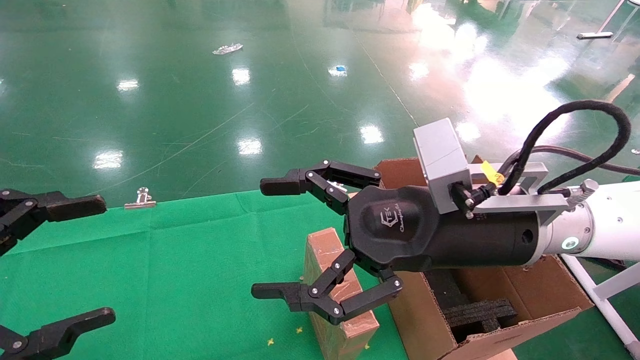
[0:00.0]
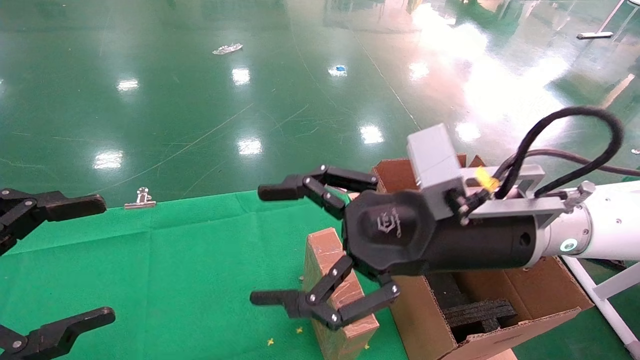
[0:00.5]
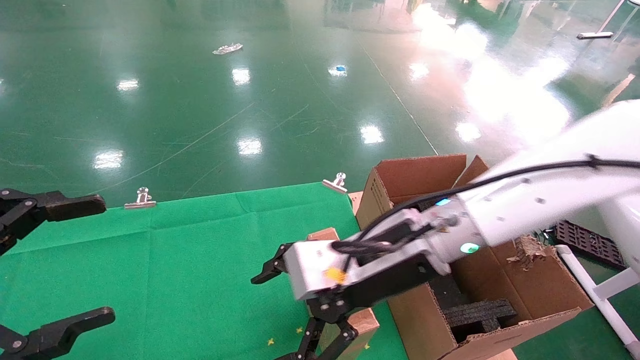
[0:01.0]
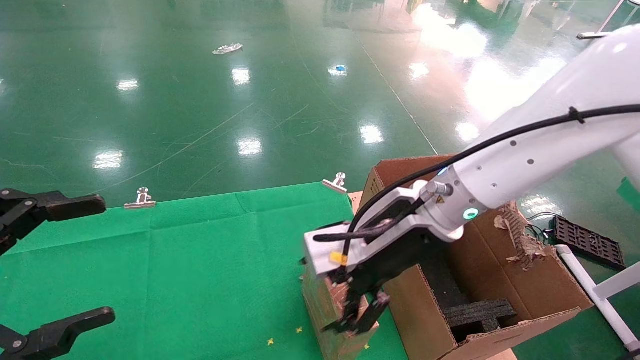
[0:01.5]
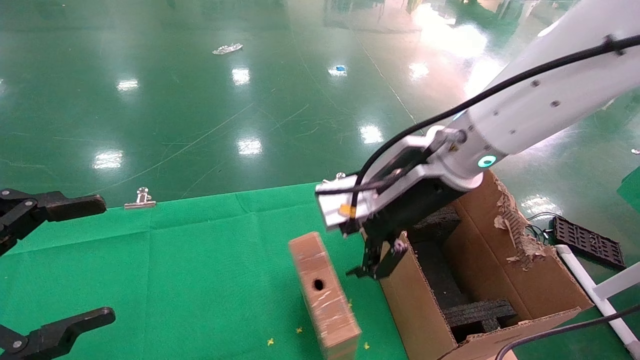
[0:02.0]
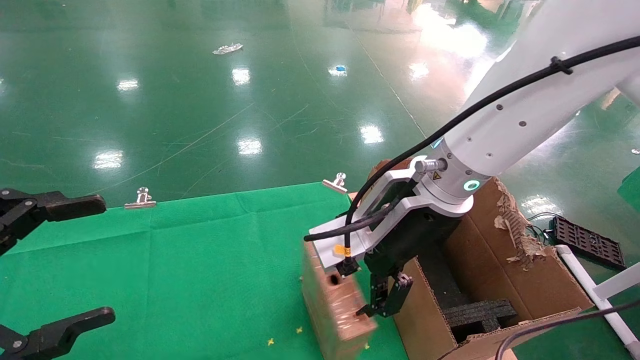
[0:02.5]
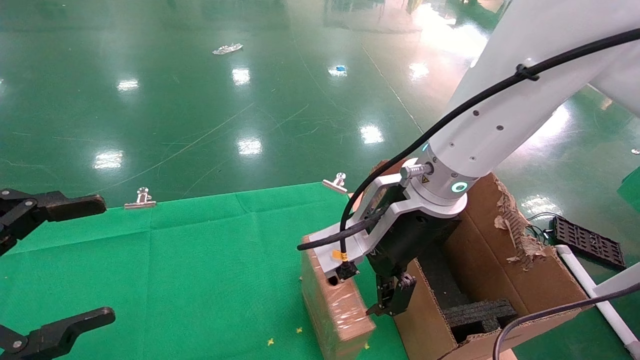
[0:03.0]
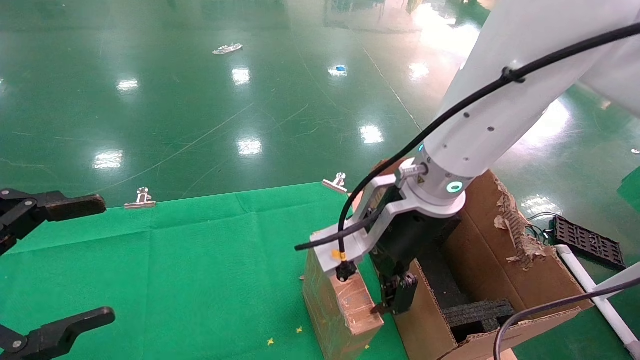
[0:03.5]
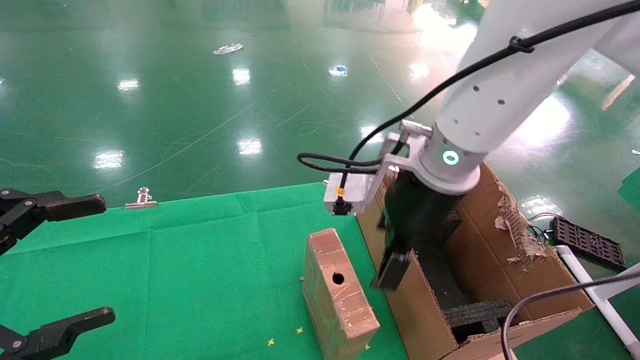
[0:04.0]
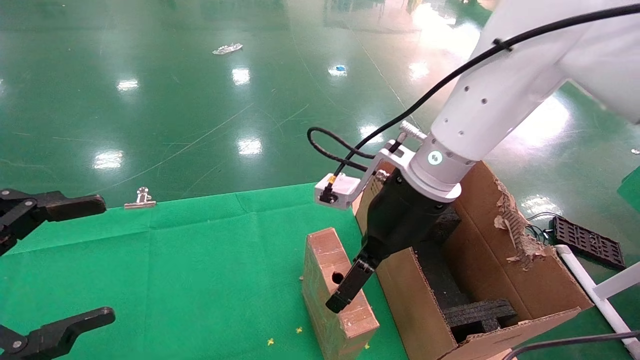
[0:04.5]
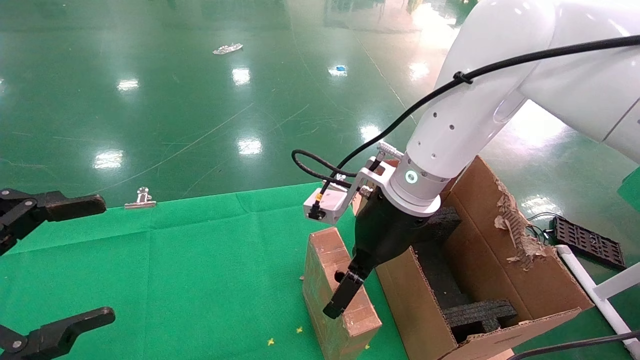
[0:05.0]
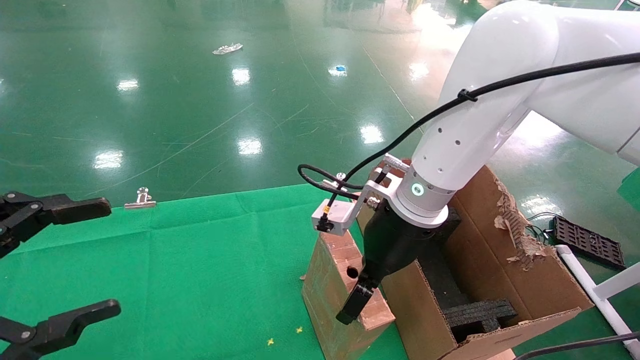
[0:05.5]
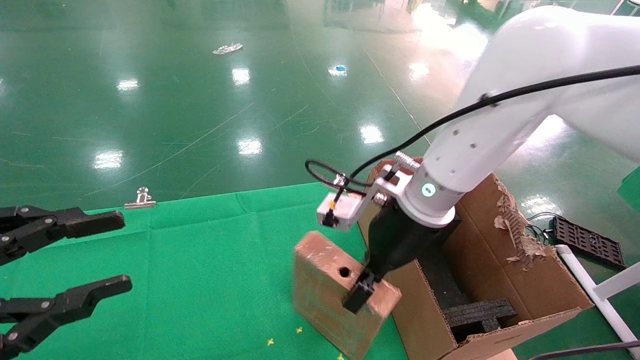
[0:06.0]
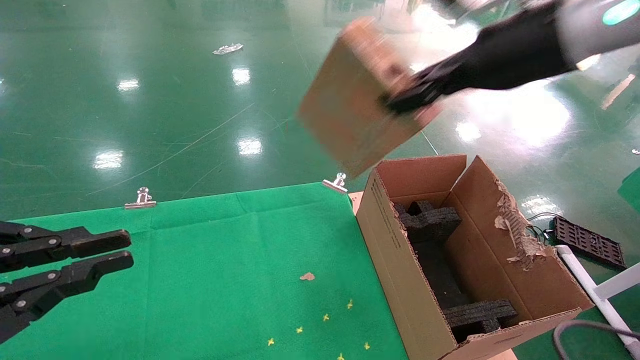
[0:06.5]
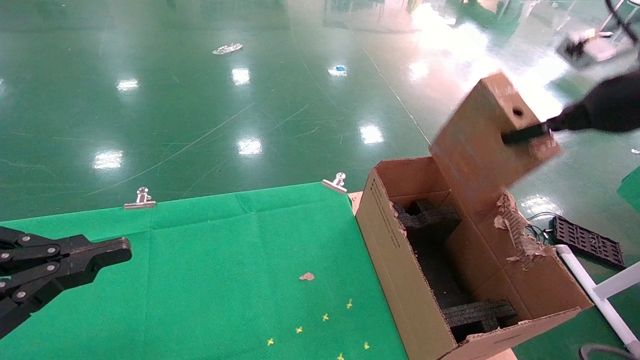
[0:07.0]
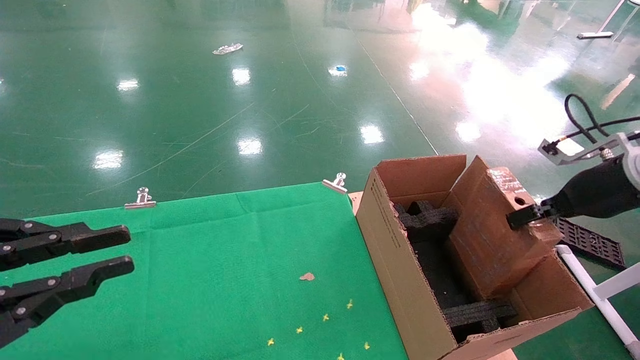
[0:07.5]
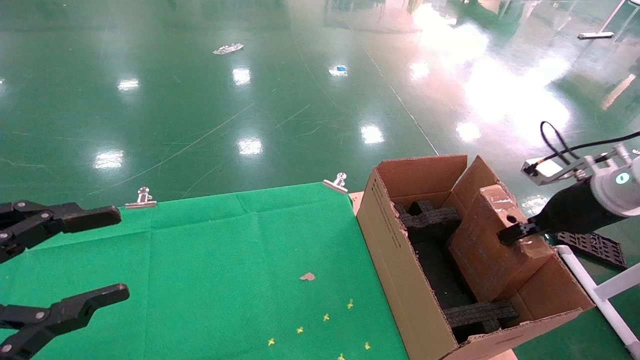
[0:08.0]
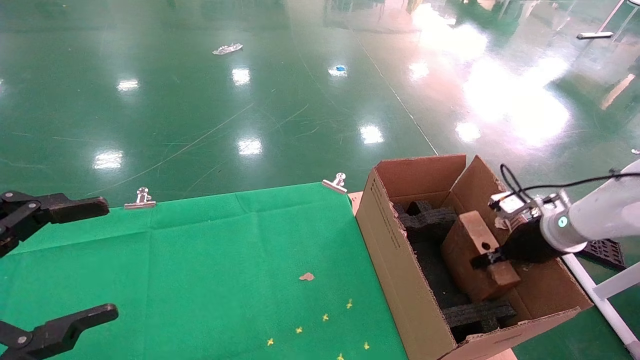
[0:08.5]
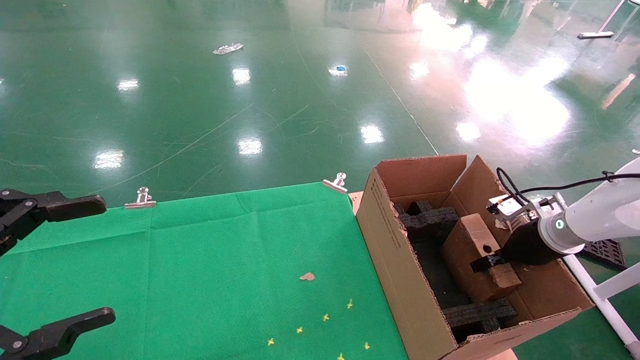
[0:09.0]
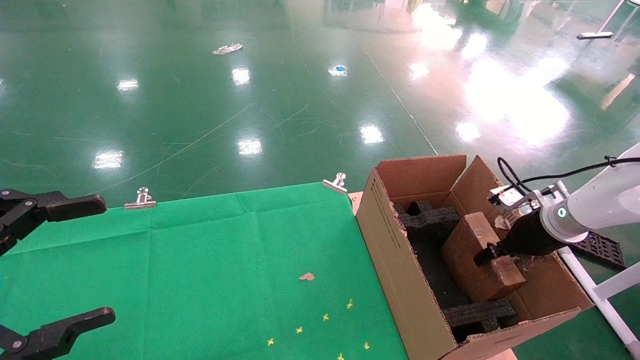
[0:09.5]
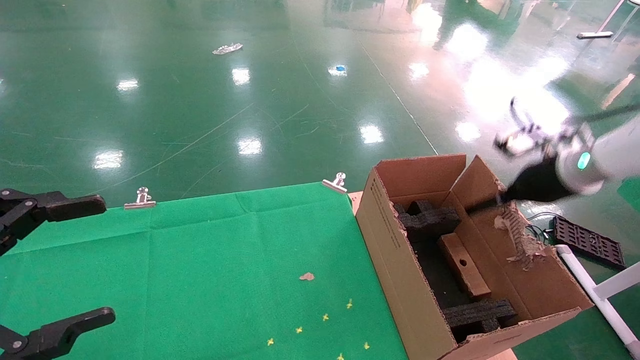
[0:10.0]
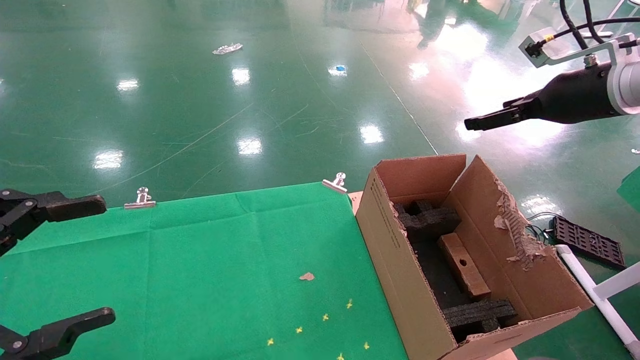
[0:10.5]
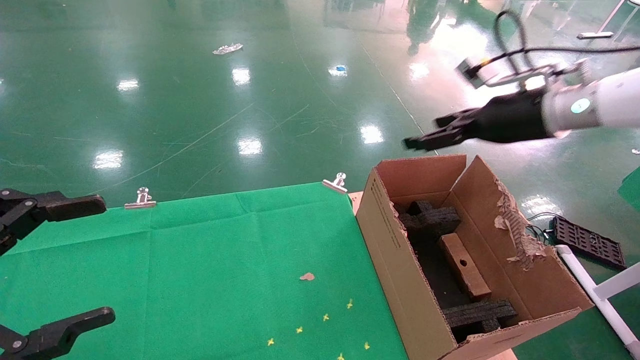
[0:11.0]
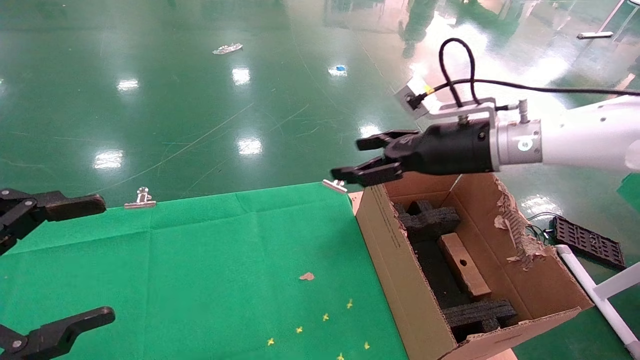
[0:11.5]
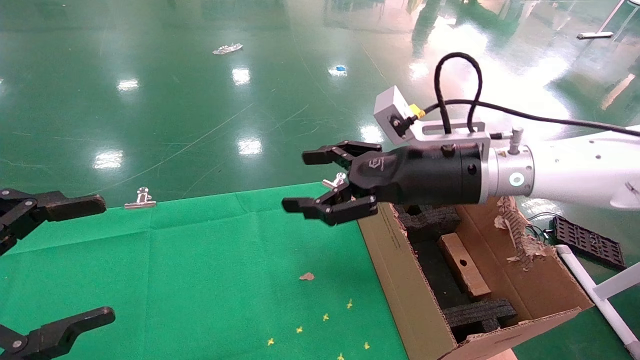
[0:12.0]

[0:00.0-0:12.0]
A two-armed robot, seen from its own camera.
Task of the whole recording: using a robotic arm to pick up a cardboard box and palace it the carton.
Step, 0:01.0 to 0:05.5: Pick up the mouse and the power cord paper box.
Step, 0:06.0 to 0:10.0: Place the mouse and the power cord paper box into the container.
0:00.0 to 0:02.0: The right gripper travels forward by some 5 cm.
0:04.0 to 0:06.0: The left gripper closes up, while the right gripper closes.
0:06.0 to 0:08.0: The right gripper heads to the right, covering about 30 cm. Meanwhile the left gripper closes and opens again.
0:08.0 to 0:10.0: The right gripper moves about 10 cm downward and comes back, and opens. Meanwhile the left gripper opens up.
0:10.0 to 0:12.0: The right gripper moves to the left, about 25 cm.

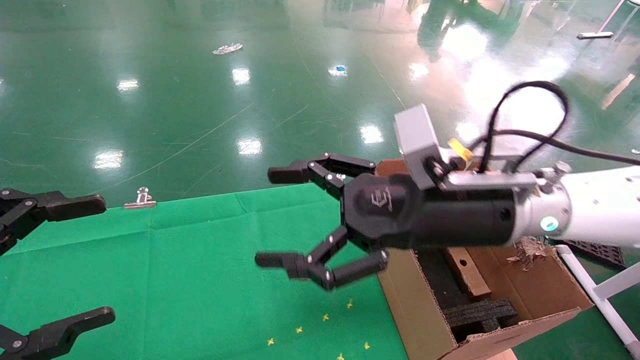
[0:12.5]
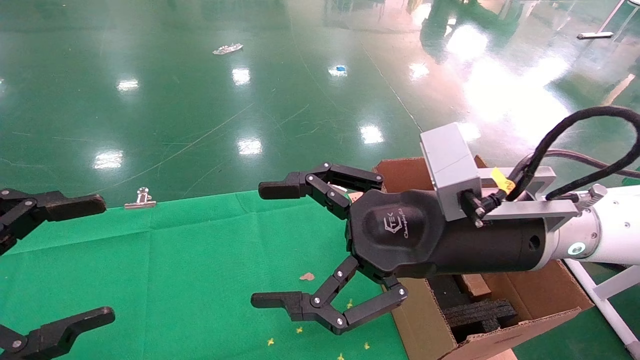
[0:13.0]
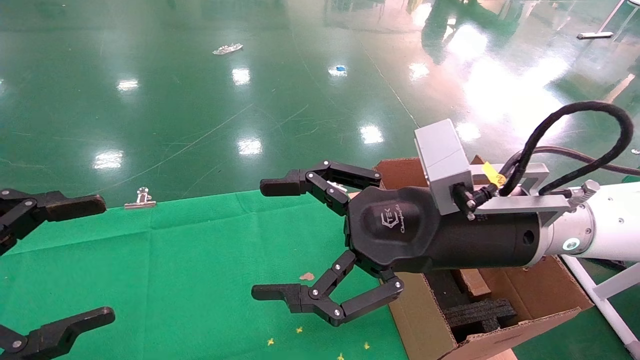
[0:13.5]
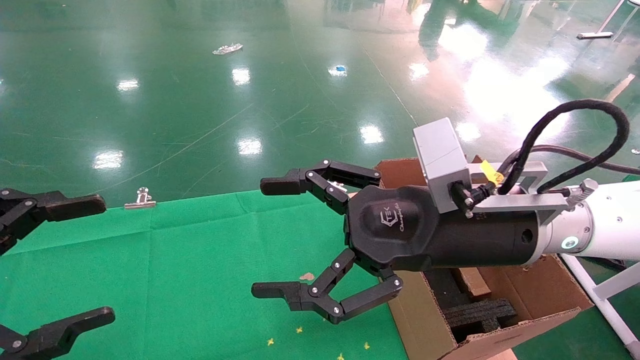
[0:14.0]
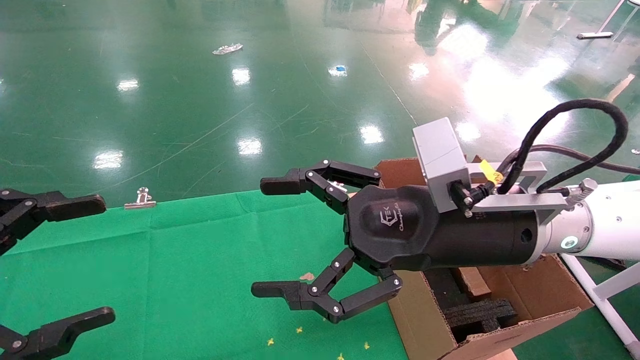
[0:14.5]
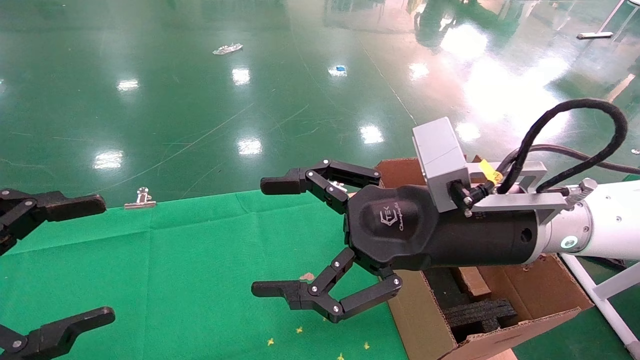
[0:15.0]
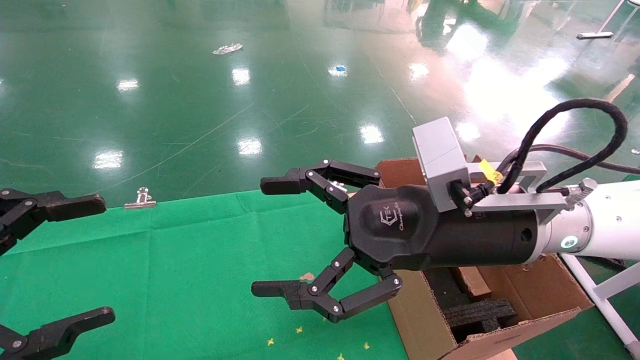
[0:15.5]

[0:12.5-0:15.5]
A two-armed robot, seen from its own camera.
Task of the whole recording: using a robotic arm to pick up a cardboard box and palace it the carton.
0:12.5 to 0:14.0: The grippers move only a little.
0:14.0 to 0:15.5: The two grippers keep their place.

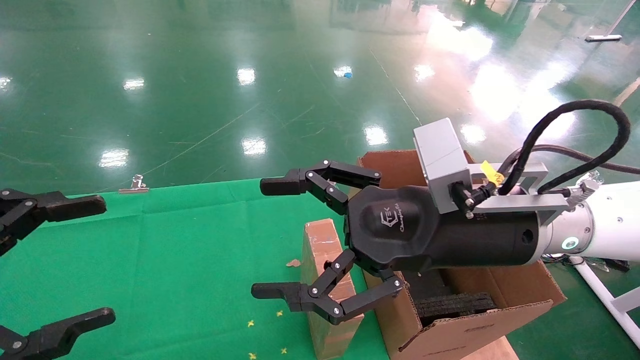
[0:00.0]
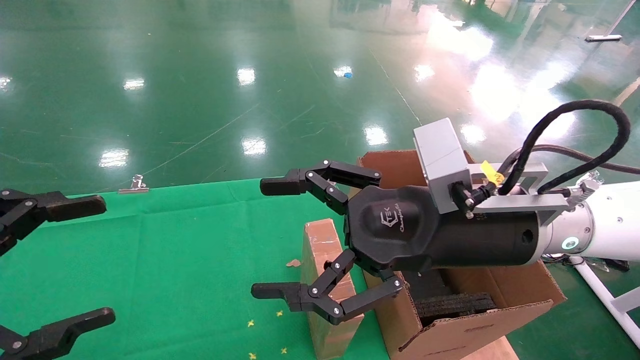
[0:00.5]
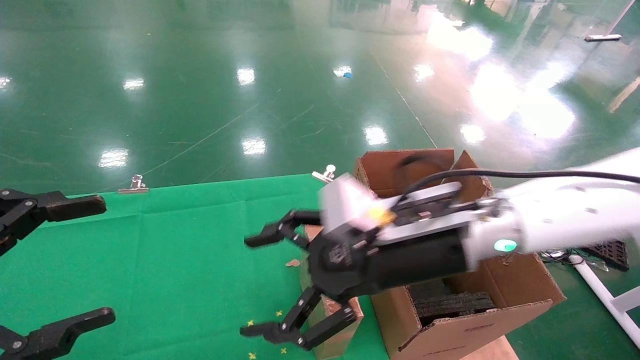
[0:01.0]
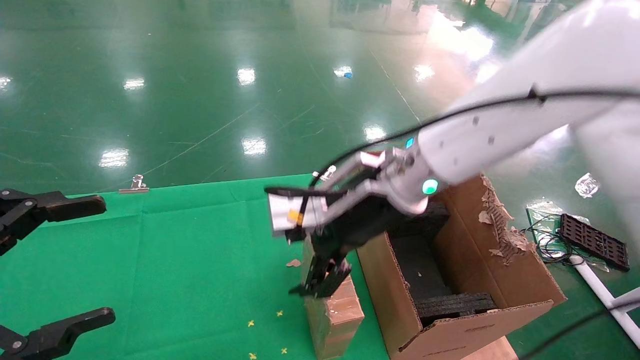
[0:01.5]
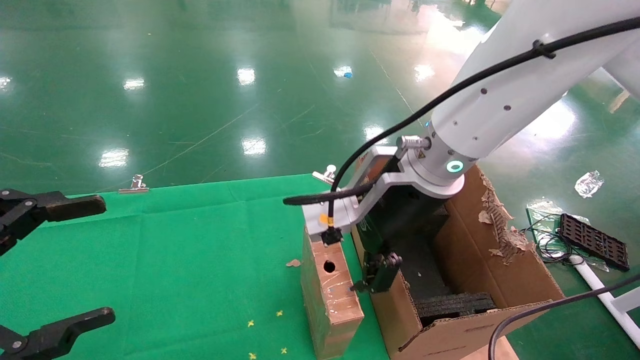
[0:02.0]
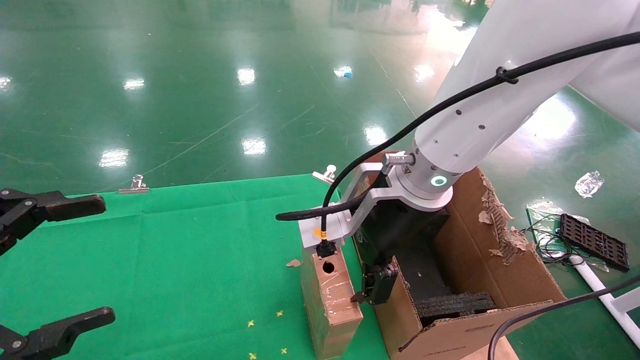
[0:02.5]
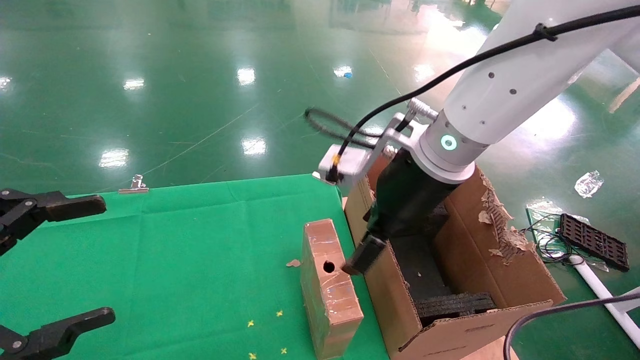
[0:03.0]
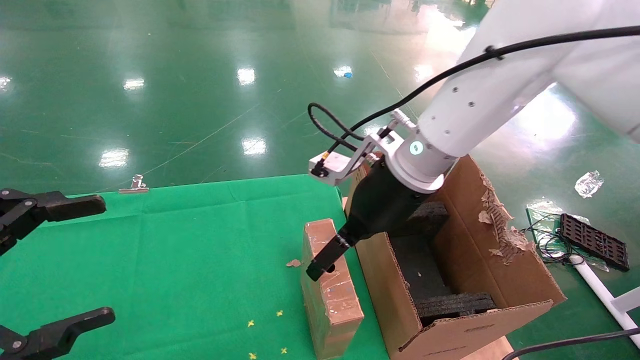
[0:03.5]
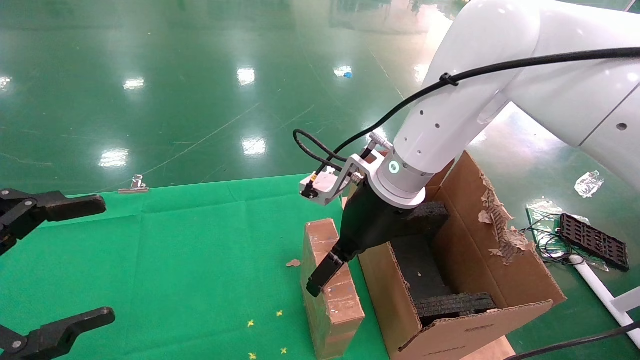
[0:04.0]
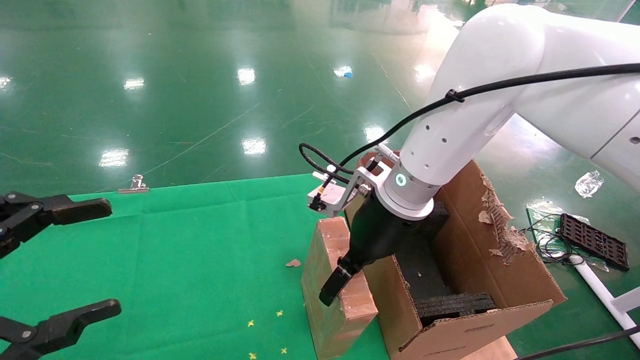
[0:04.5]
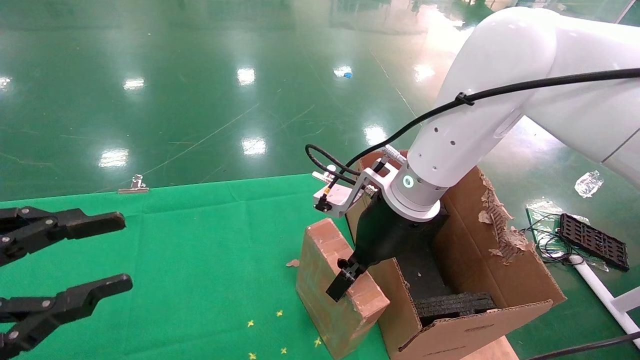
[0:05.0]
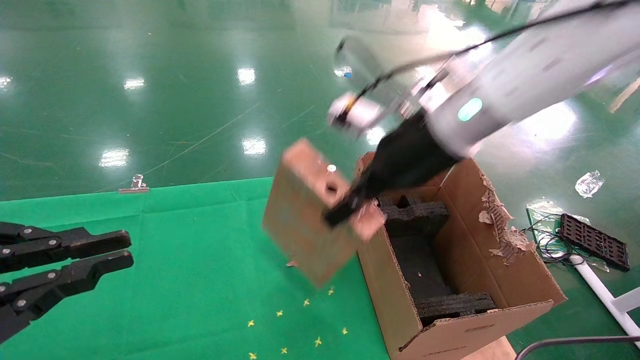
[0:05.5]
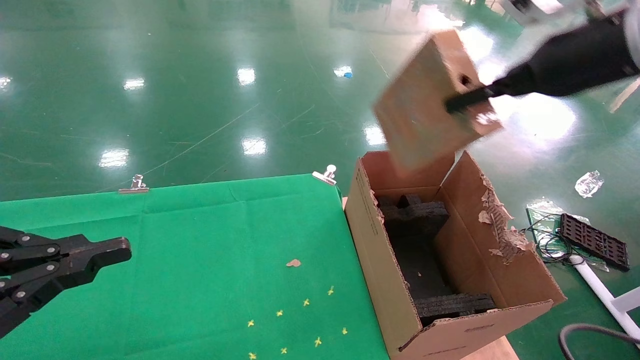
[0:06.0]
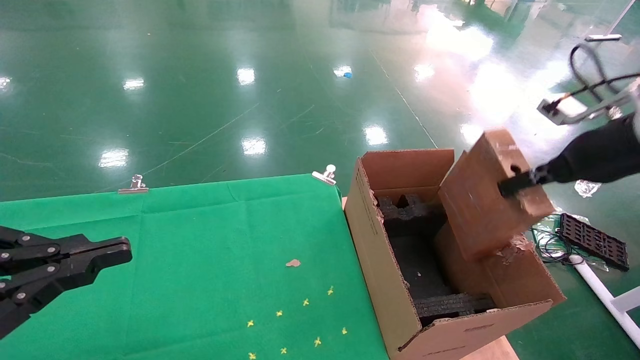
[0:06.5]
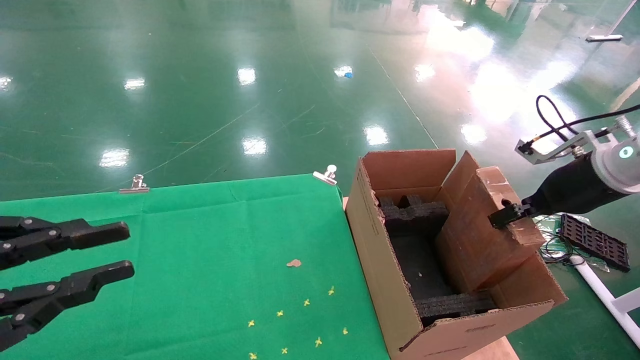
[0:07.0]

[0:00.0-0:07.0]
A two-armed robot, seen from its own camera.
Task of the whole recording: using a robotic arm to pick up a cardboard box and palace it the carton.
Step, 0:01.0 to 0:05.0: Pick up the mouse and the power cord paper box.
0:00.0 to 0:02.0: The right gripper goes roughly 10 cm forward and to the left.
0:03.5 to 0:05.0: The right gripper closes up. The left gripper closes its fingers.
0:05.0 to 0:07.0: The left gripper closes its fingers, while the right gripper heads to the right, covering roughly 30 cm, and closes up.
